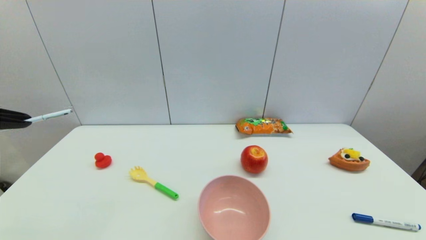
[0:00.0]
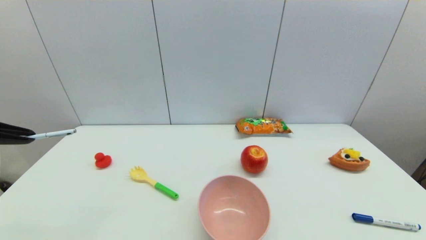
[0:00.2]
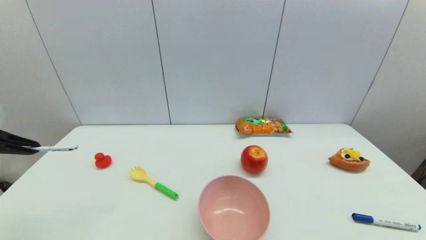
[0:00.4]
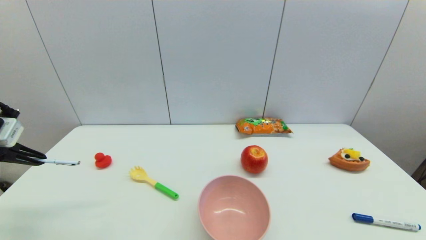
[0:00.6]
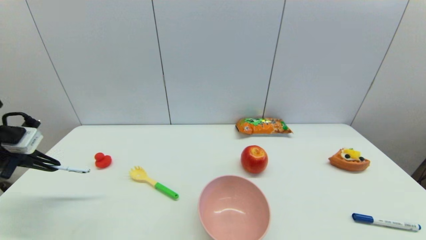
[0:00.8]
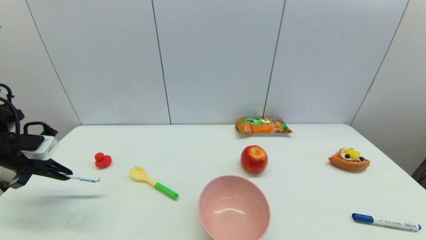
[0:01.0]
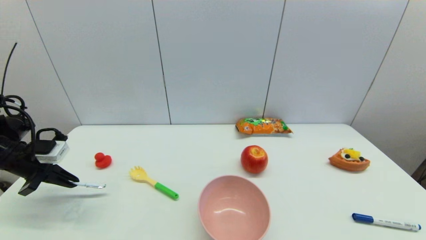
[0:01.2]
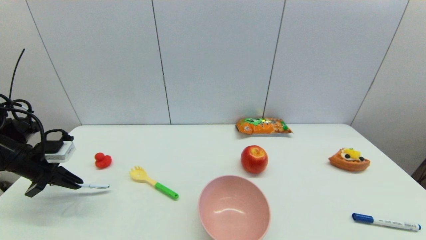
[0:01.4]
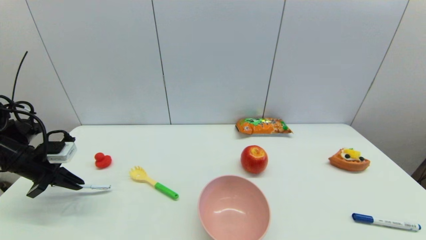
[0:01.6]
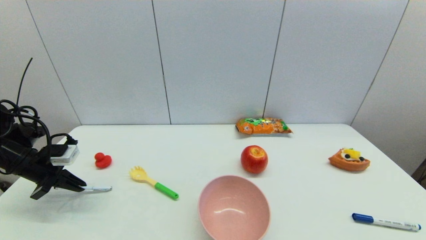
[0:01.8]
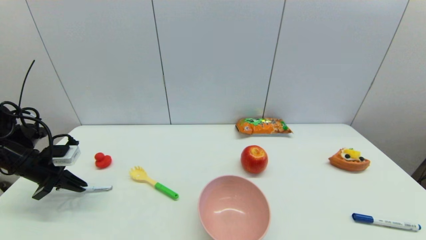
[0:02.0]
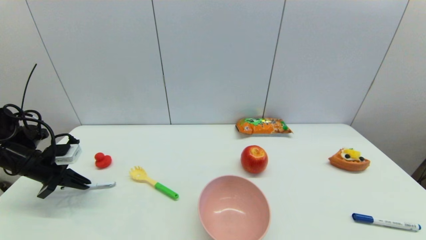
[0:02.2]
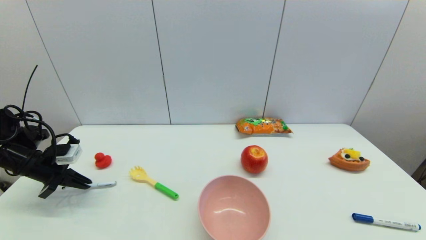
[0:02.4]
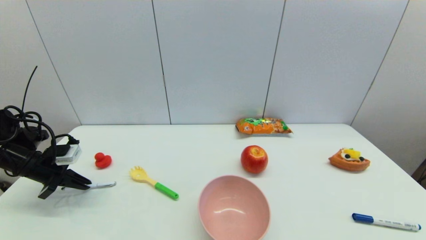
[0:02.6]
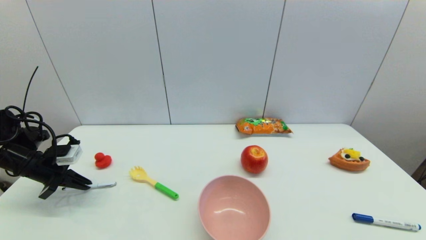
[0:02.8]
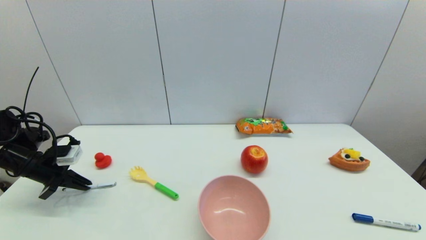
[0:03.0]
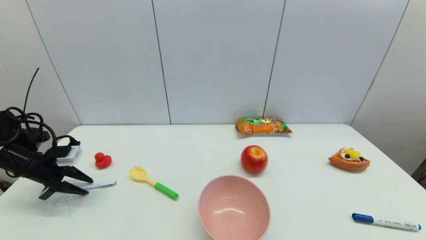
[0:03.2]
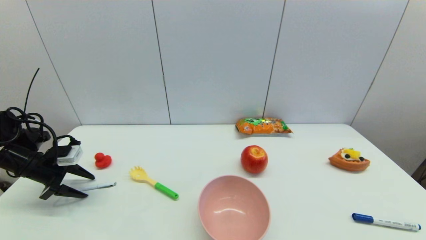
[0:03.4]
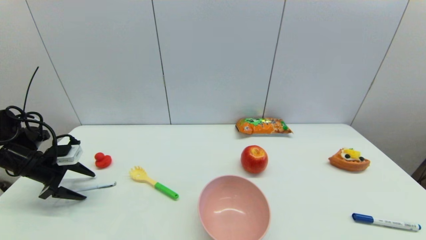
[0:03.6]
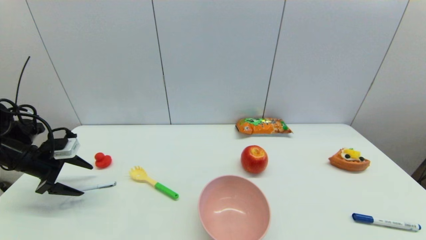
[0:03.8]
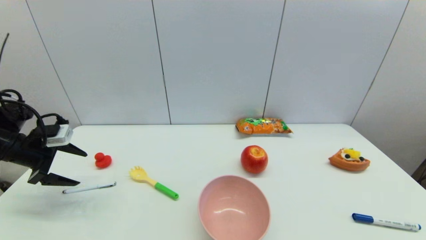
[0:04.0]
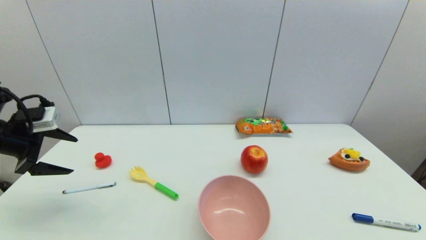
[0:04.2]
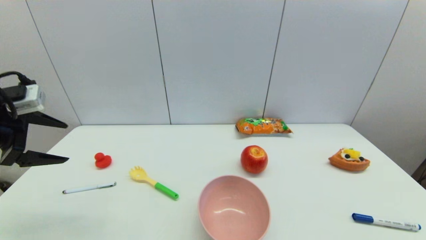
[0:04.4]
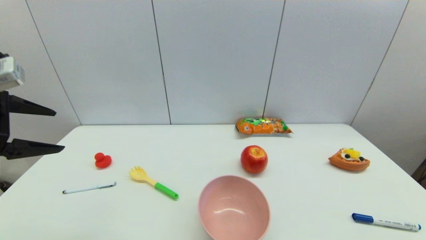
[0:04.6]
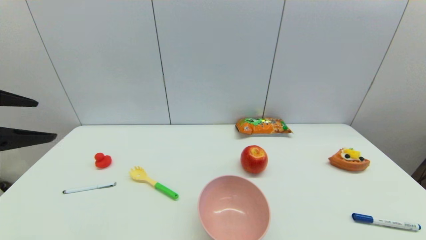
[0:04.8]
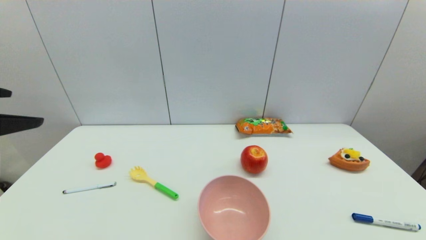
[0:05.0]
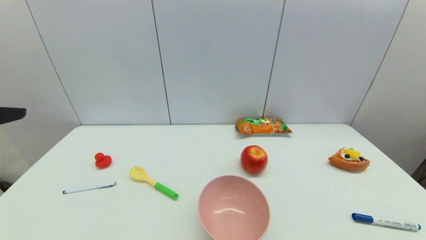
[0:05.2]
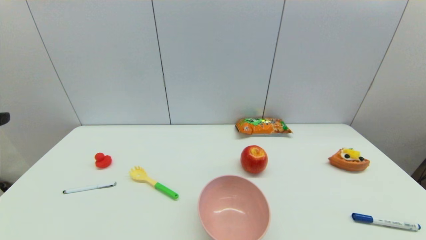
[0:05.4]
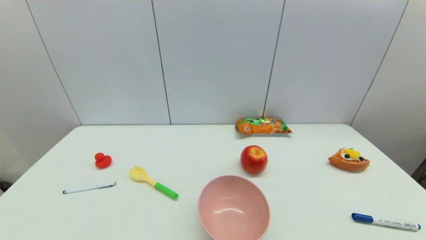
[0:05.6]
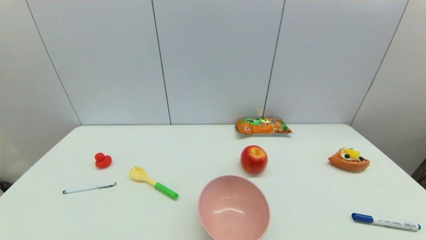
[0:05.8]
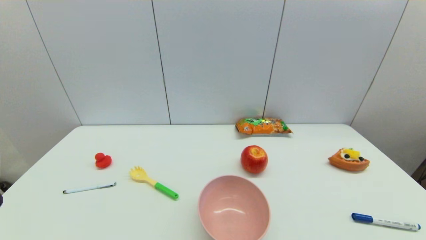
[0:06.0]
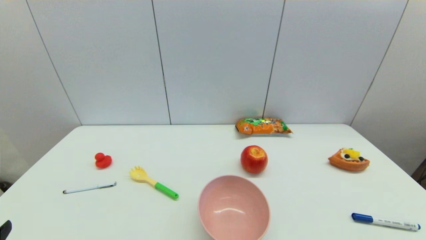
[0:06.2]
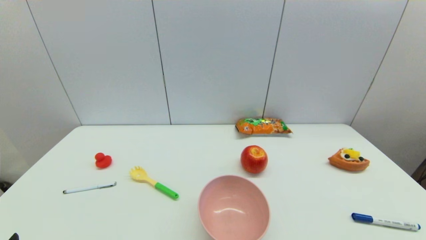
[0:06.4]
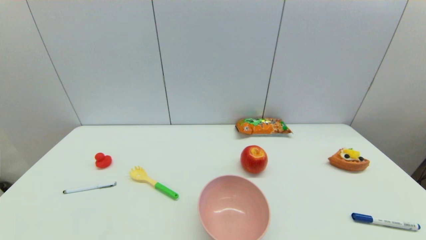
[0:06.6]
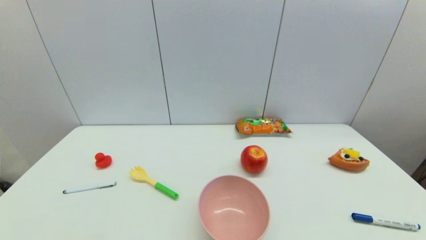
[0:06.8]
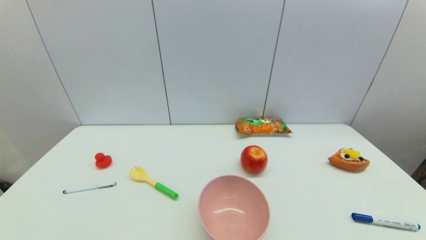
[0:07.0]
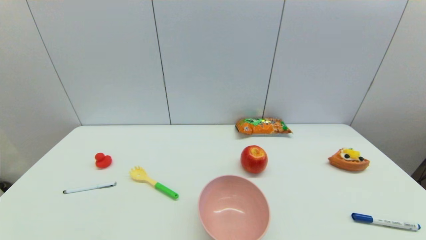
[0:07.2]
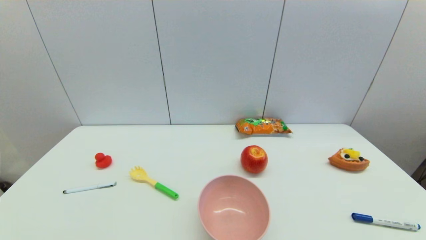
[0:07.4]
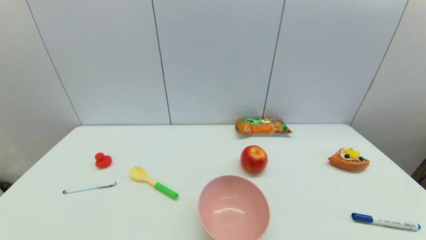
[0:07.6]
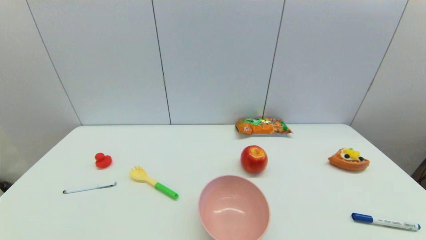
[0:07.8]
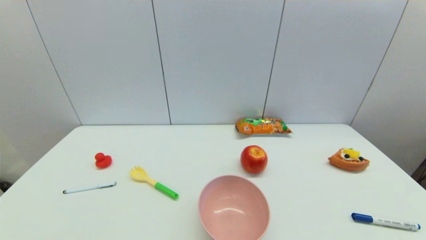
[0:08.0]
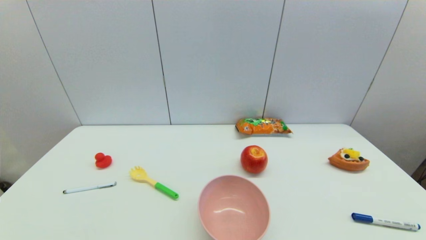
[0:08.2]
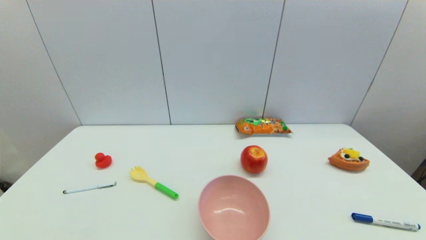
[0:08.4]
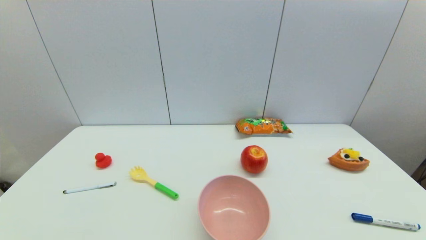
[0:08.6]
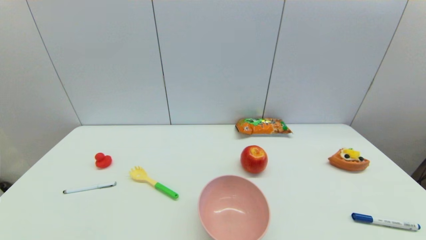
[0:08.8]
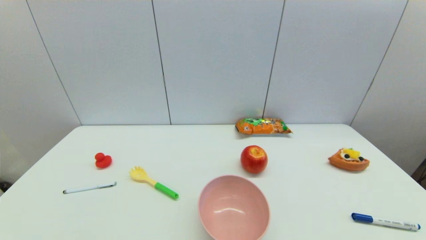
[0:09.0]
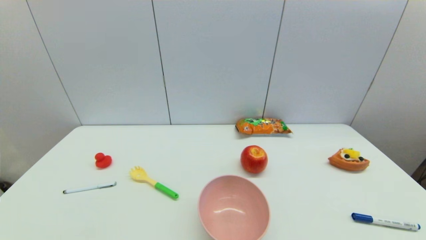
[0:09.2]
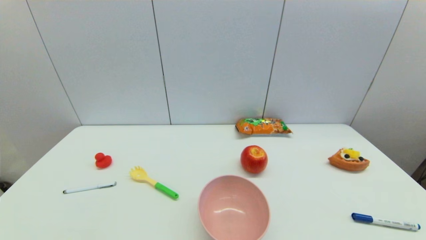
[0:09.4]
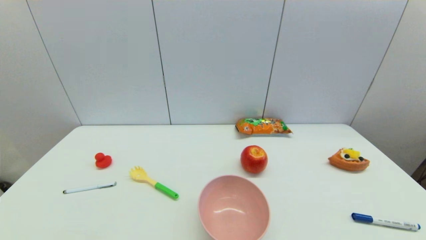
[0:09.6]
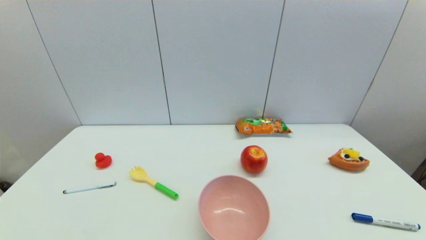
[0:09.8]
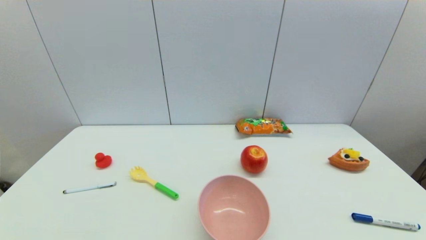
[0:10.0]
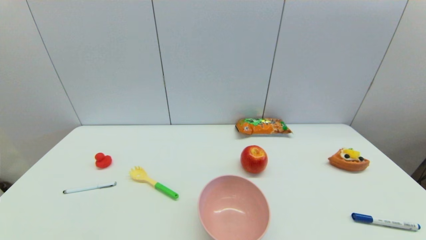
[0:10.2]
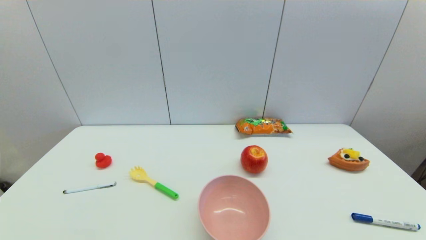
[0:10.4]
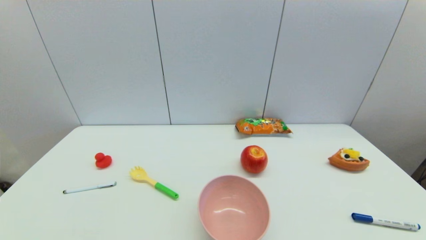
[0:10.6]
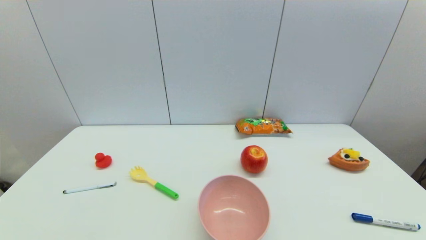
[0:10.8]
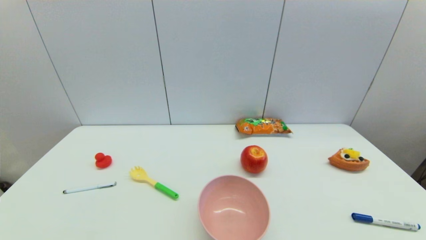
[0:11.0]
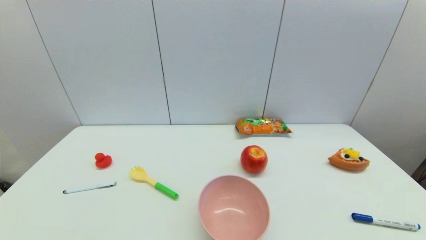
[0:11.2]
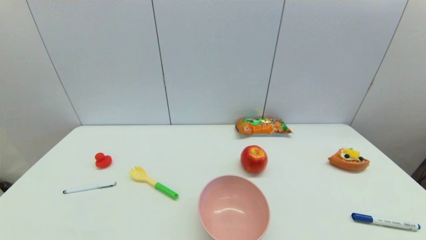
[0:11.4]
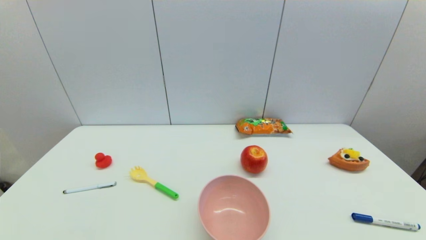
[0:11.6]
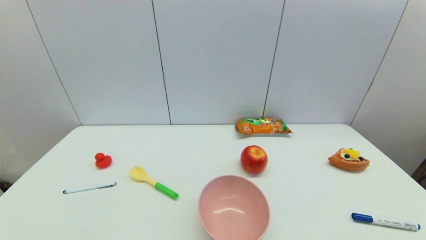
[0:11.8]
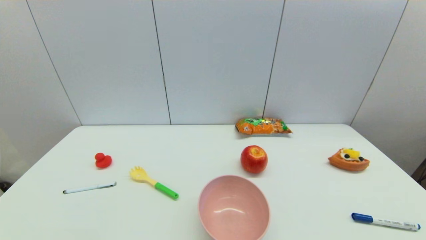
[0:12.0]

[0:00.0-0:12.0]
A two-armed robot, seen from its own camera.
Task of the whole recording: put the pen in the designated position.
Step, 0:00.0 to 0:03.4: Place the sign pen on the table with left gripper.
0:00.0 to 0:01.6: The left gripper heads downward and forward, covering about 20 cm.
0:01.6 to 0:03.0: The grippers make only small movements.
0:03.0 to 0:04.4: The left gripper shifts approximately 20 cm upward and backward, and opens up.
0:04.4 to 0:06.0: The left gripper moves backward, some 20 cm.
0:07.6 to 0:09.0: The two grippers keep their place.
0:10.4 to 0:12.0: The two grippers keep their place.

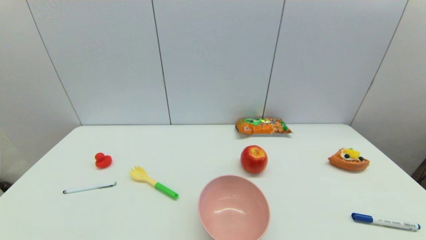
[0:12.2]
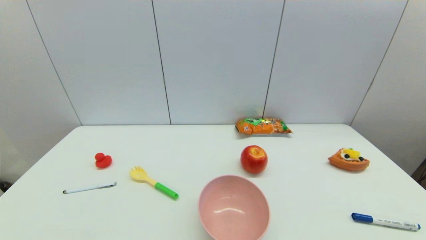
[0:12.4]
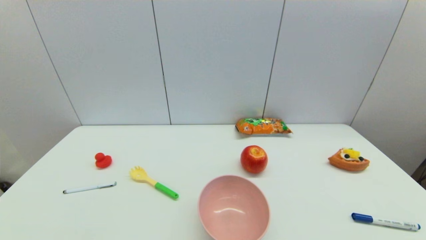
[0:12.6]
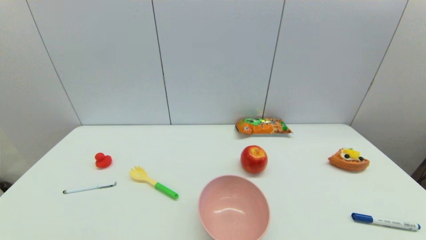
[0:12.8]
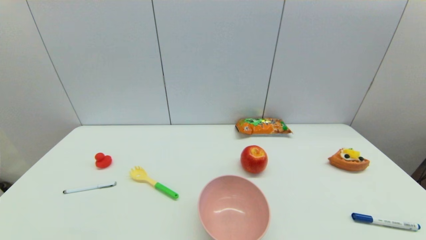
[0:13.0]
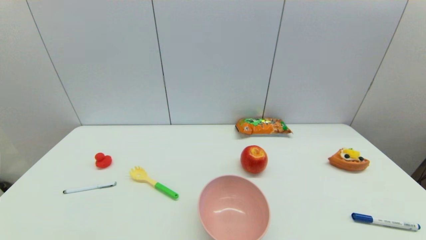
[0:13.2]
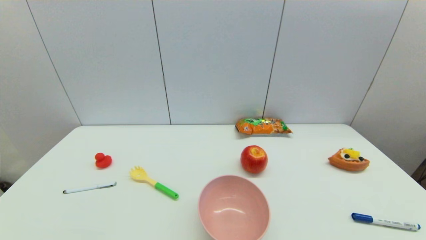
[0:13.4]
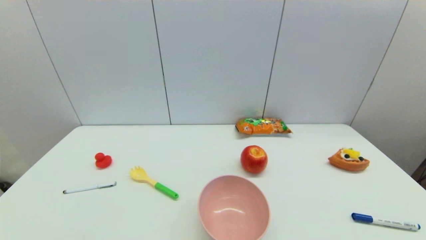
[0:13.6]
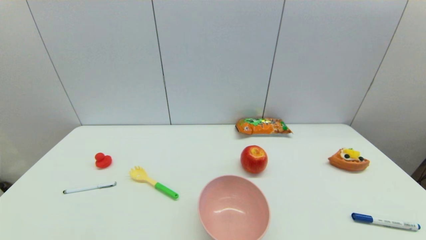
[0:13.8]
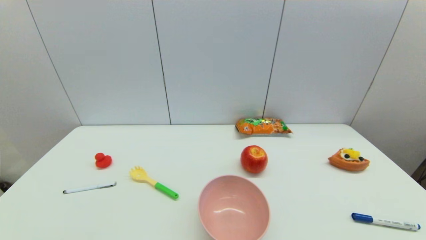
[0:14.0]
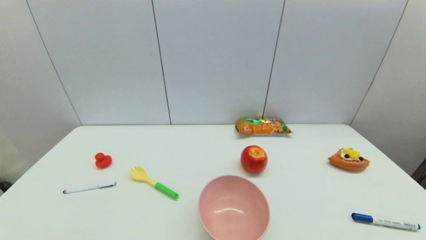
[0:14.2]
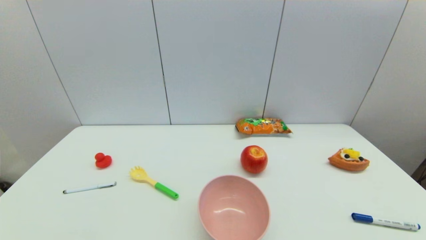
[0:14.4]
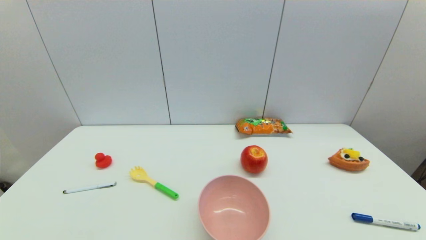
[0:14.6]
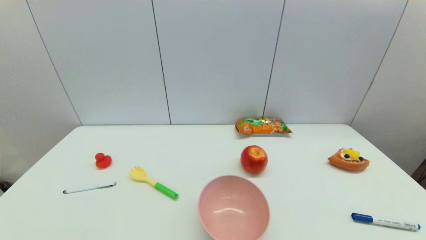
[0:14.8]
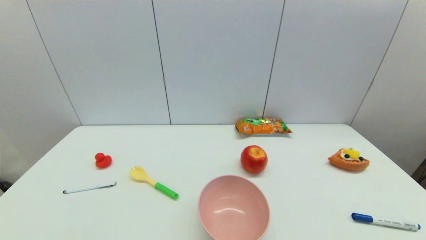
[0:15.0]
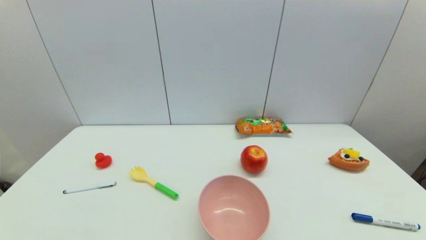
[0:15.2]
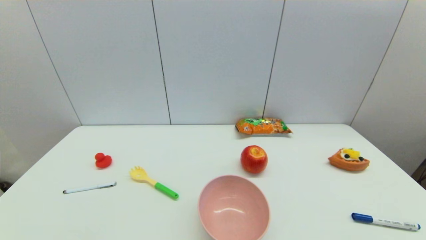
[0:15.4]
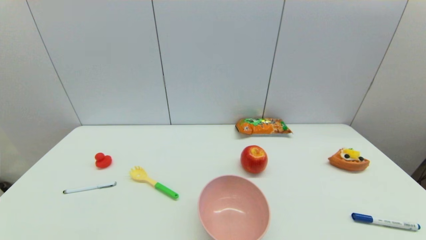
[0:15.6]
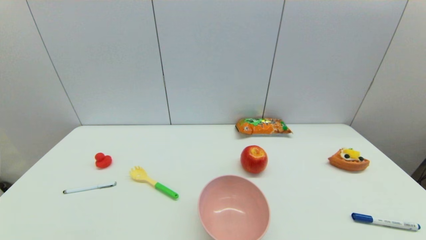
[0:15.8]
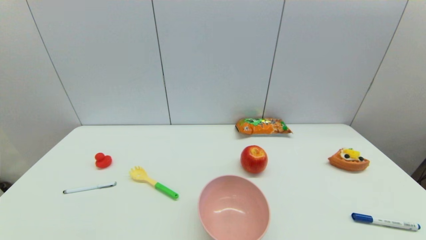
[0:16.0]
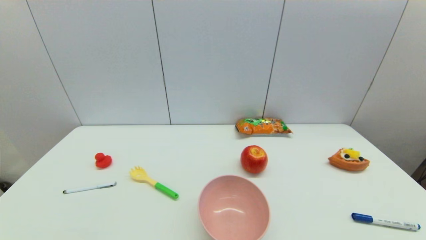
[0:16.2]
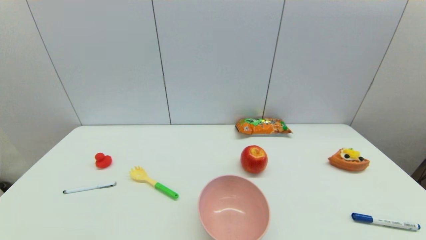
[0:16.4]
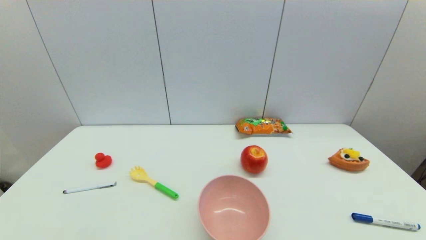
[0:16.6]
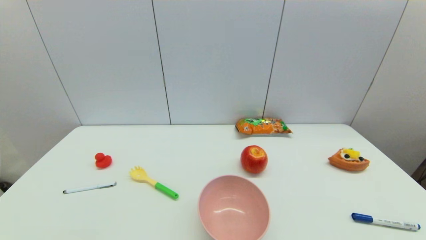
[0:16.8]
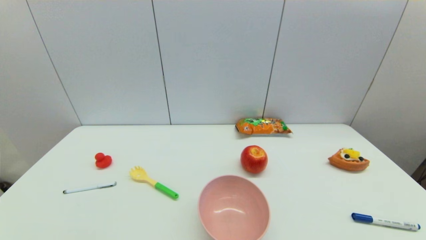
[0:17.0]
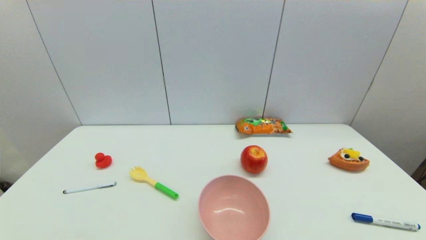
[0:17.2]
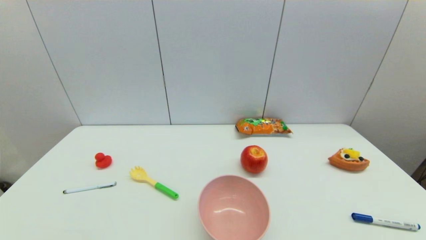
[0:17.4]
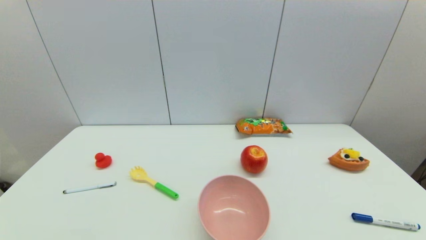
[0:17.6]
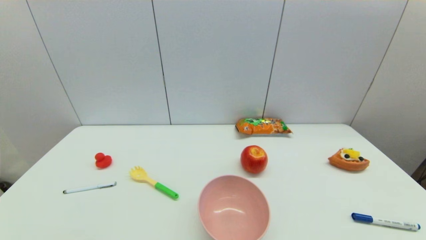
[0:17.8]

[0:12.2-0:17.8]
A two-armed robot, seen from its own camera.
Task of the whole recording: put the pen in the designated position.
0:12.2 to 0:17.8: The two grippers keep their place.
